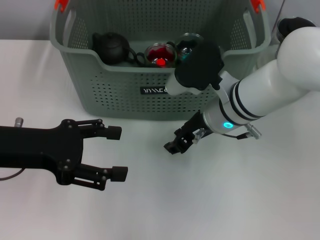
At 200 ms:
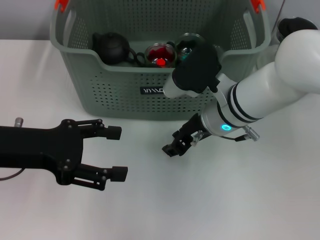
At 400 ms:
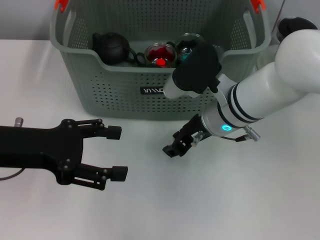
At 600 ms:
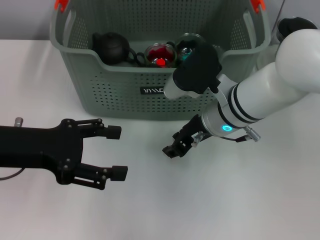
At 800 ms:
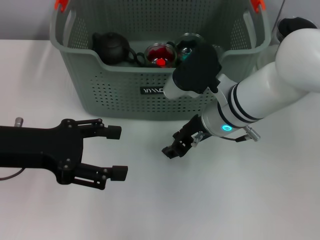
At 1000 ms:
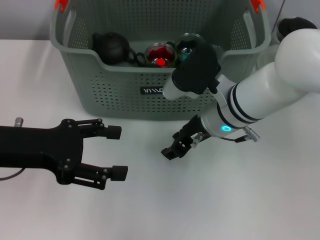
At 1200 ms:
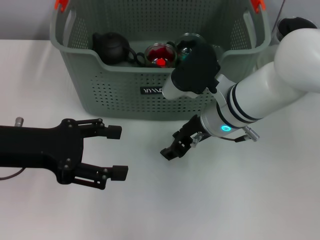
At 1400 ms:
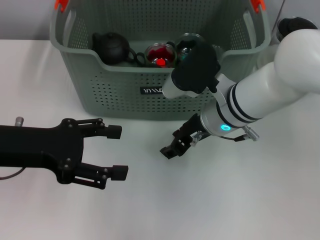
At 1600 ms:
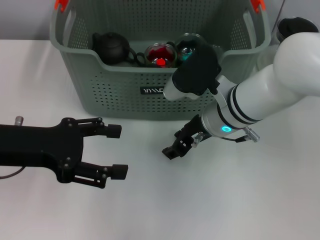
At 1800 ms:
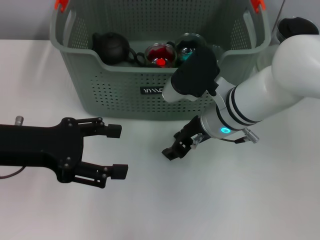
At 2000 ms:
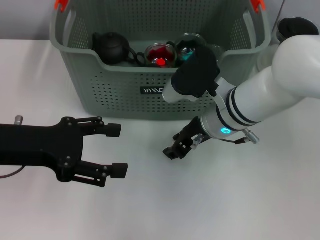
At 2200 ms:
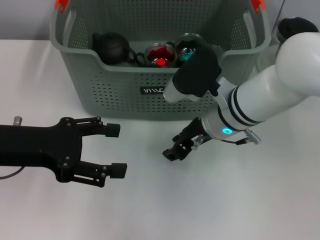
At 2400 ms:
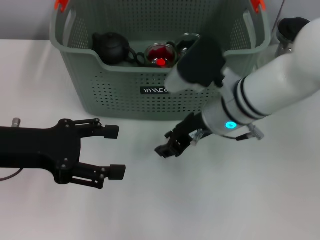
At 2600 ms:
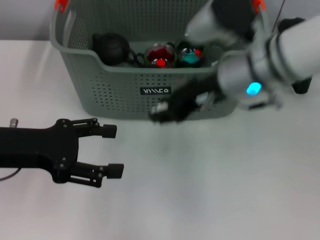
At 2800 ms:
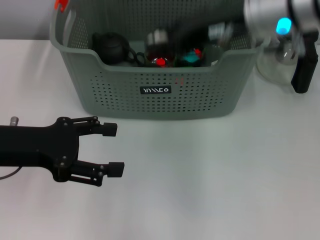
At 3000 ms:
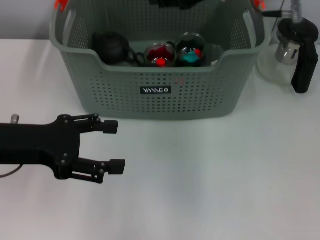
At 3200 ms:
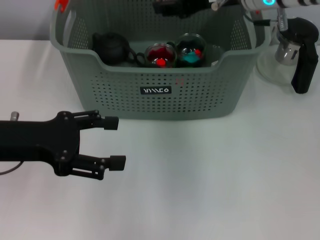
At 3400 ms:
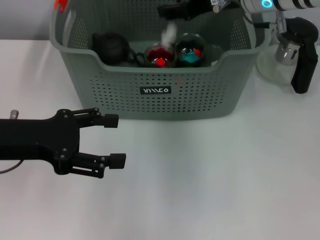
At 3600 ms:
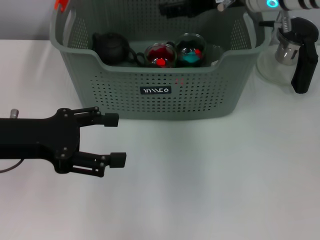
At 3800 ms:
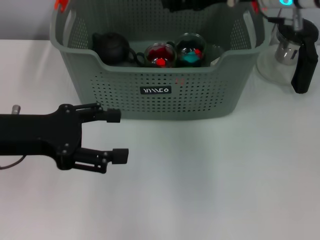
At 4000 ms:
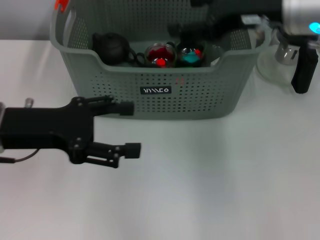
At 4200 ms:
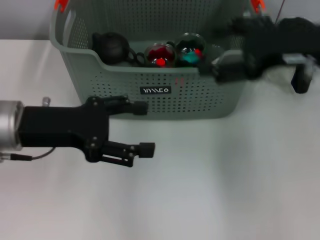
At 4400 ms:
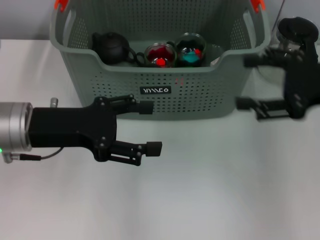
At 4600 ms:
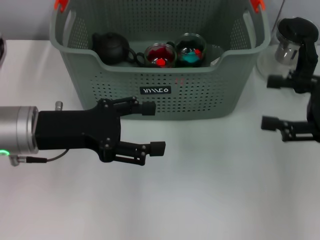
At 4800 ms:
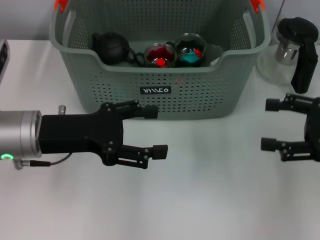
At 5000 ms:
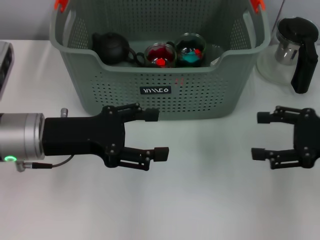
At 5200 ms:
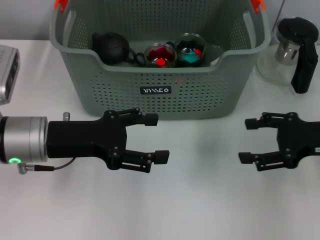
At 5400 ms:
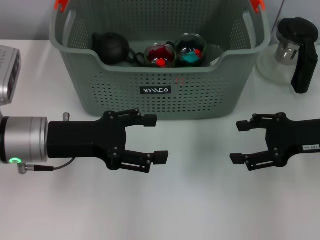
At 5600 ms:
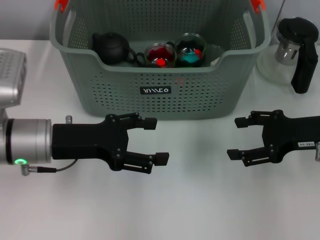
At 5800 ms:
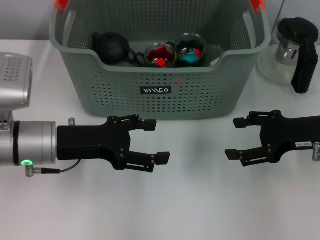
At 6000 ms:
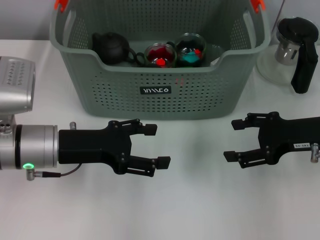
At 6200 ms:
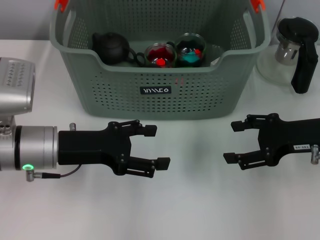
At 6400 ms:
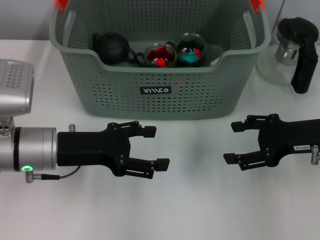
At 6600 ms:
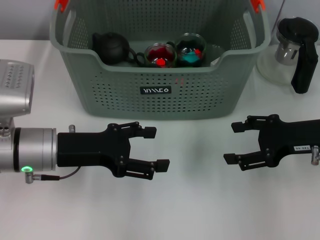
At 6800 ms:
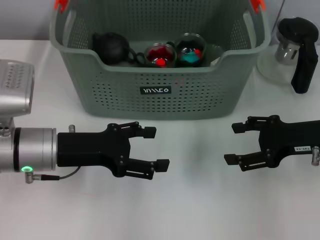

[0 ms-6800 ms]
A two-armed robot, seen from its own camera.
Task of the whole recording: pick up the teacup on the table and place it into the storage bin, pick up the block on the table and place it into the storage bin.
Step, 2000 ms to 3400 ms: Place the white block in the storage box with right gripper.
0 ms to 1400 ms: Both grippers stay about where they are.
1400 ms to 2800 ms: The right gripper moves upward, about 15 cm.
2800 ms to 4000 ms: The right gripper moves to the right, approximately 5 cm, and opens its fingers.
4000 ms to 5400 ms: The left gripper moves about 5 cm. The right gripper travels downward, to the right and backward by about 15 cm.
5400 ms to 6800 ms: There are only small adjustments of the grippers.
